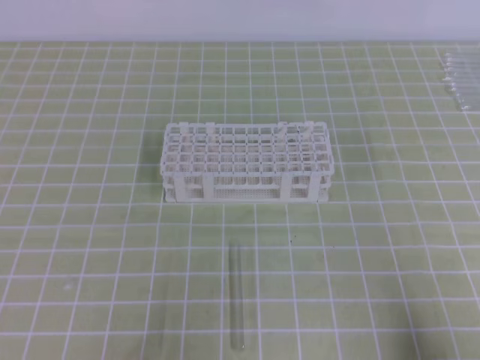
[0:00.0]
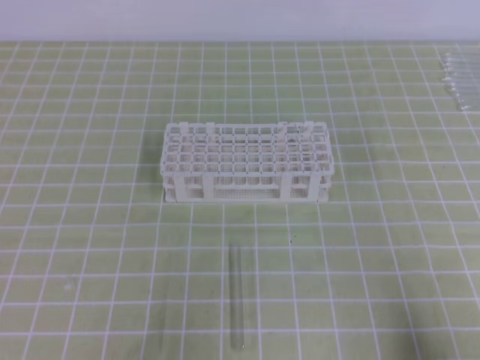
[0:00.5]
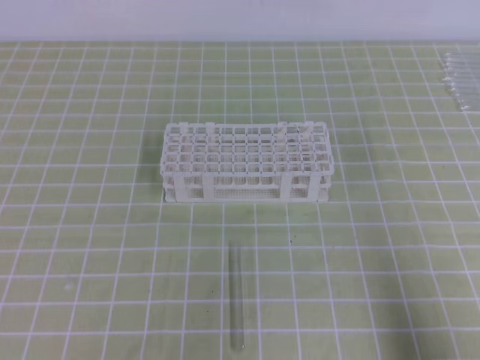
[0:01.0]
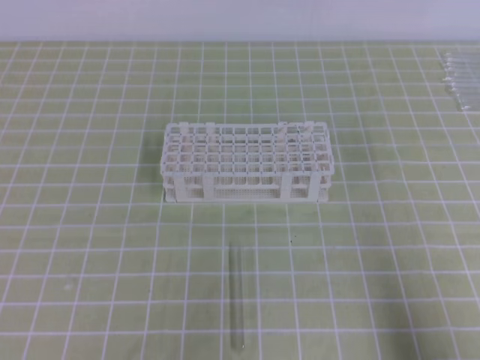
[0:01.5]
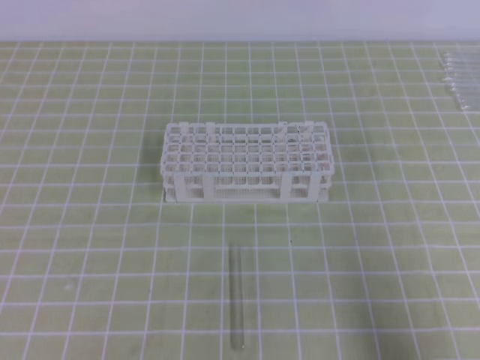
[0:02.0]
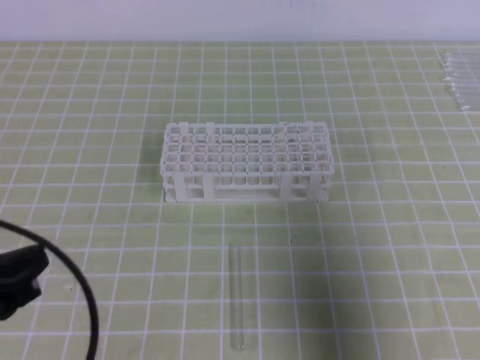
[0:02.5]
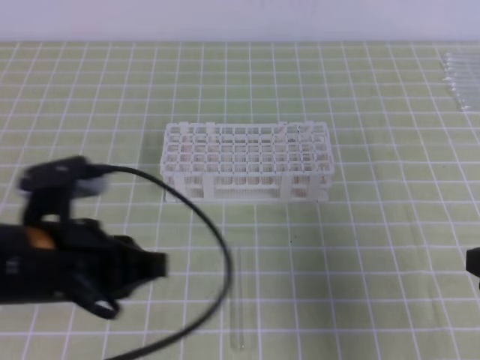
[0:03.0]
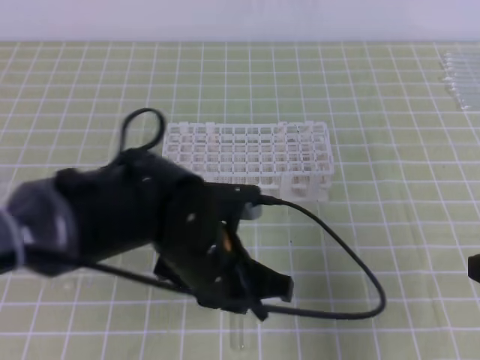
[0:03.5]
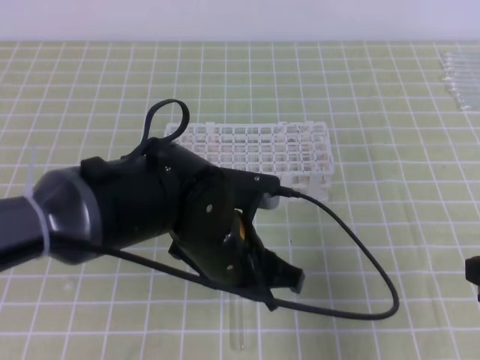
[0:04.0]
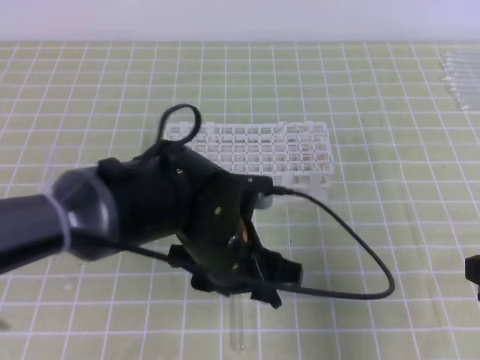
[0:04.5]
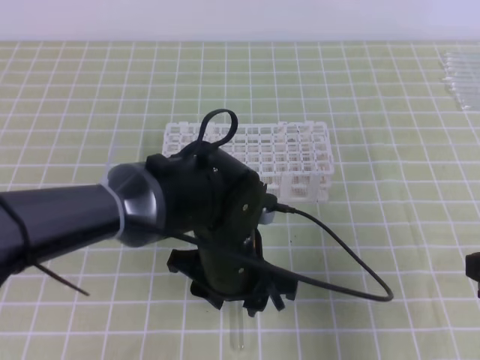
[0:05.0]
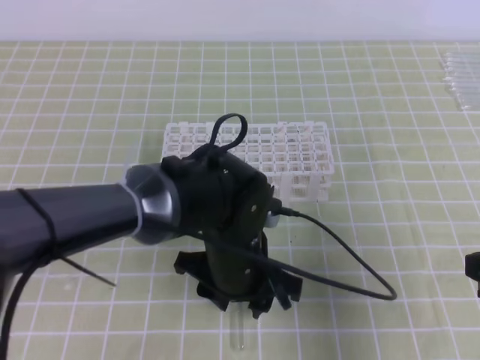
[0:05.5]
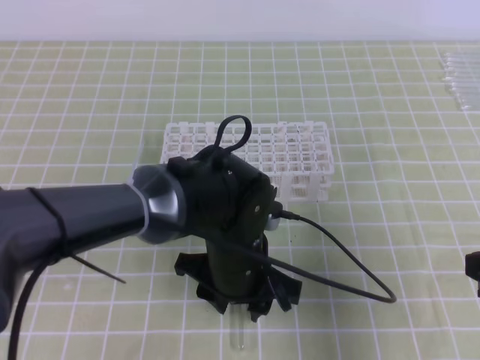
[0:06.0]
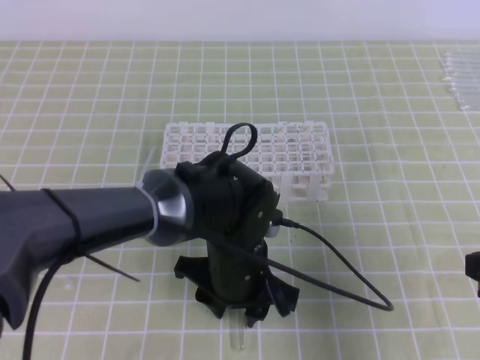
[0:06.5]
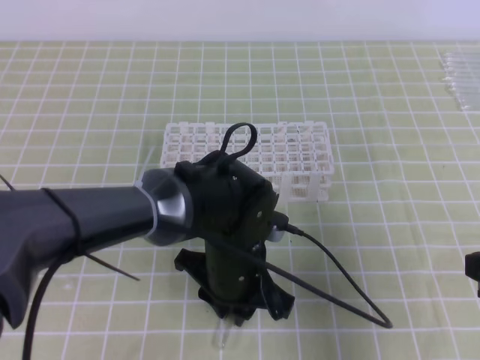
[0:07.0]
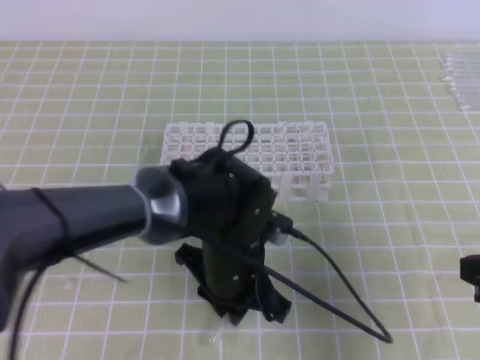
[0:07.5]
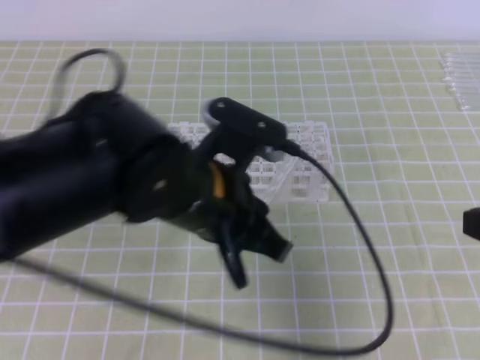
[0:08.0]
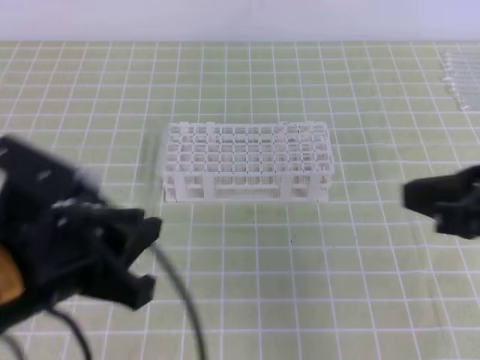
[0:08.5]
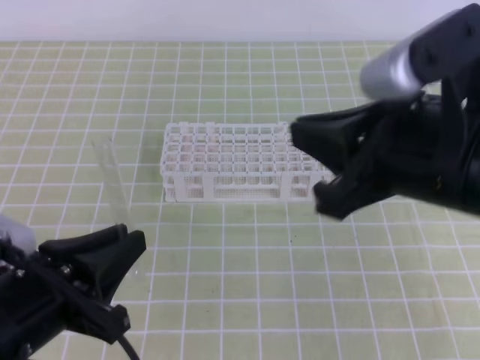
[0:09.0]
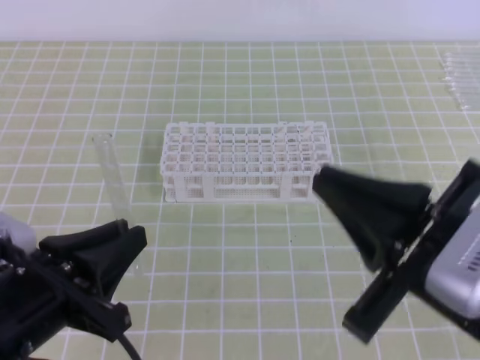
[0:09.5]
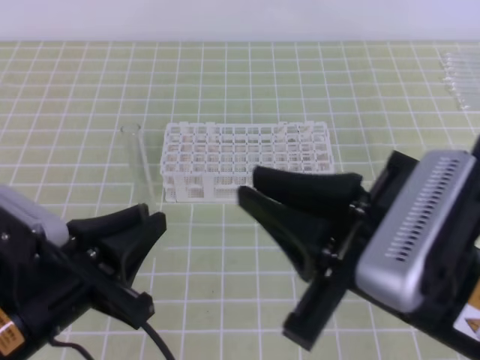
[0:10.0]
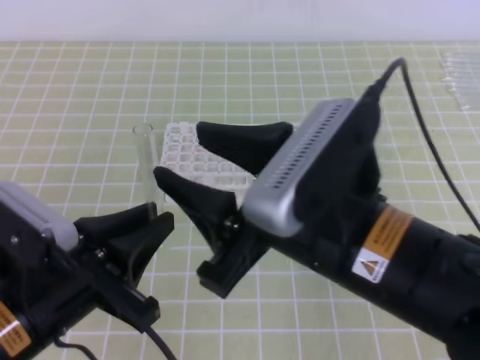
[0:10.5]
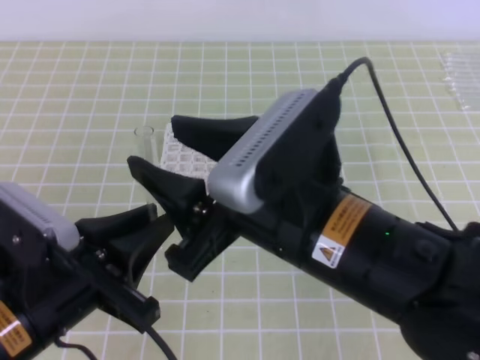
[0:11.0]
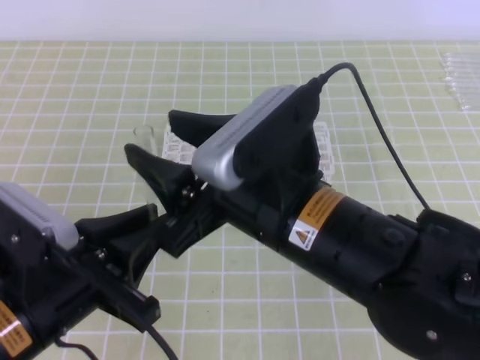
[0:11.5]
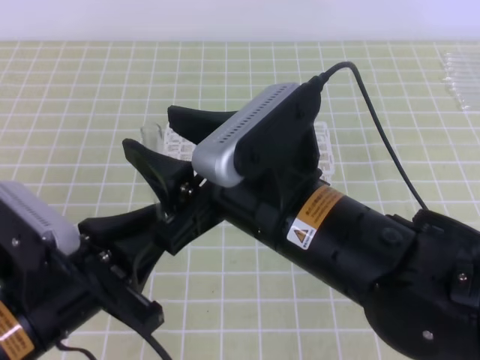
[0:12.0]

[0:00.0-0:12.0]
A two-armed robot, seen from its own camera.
0:00.0 to 0:02.0: The right gripper heads upward, covering roughly 5 cm.
0:02.0 to 0:04.0: The right gripper heads forward, covering roughly 10 cm. The left gripper goes about 30 cm to the right and forward, and opens up.
0:04.0 to 0:06.0: The left gripper is displaced downward by some 5 cm, and opens.
0:06.0 to 0:08.0: The left gripper shifts roughly 10 cm upward, and closes its fingers.
0:08.0 to 0:10.0: The right gripper shifts about 15 cm to the left, while the left gripper moves to the left and backward, about 15 cm.
0:10.0 to 0:12.0: The right gripper goes roughly 10 cm to the left and forward, and opens.

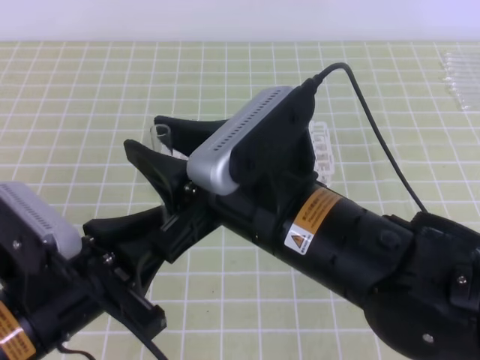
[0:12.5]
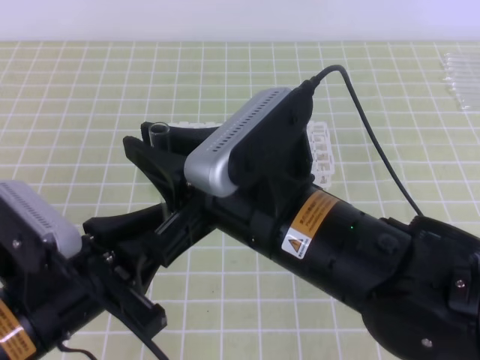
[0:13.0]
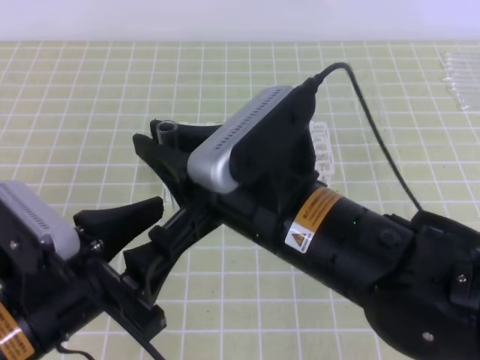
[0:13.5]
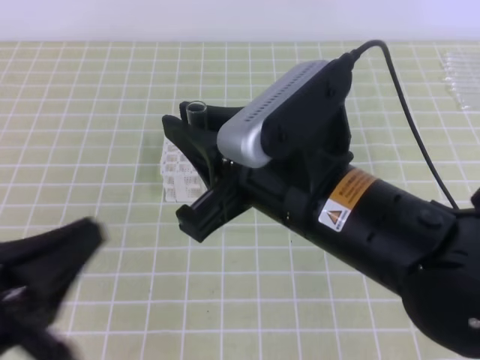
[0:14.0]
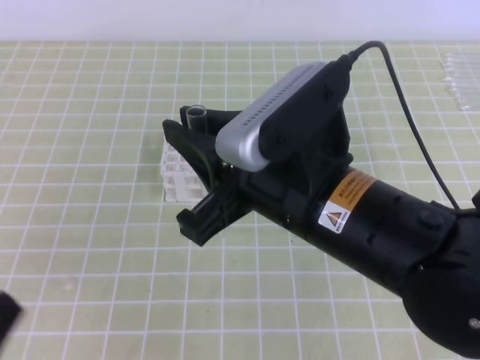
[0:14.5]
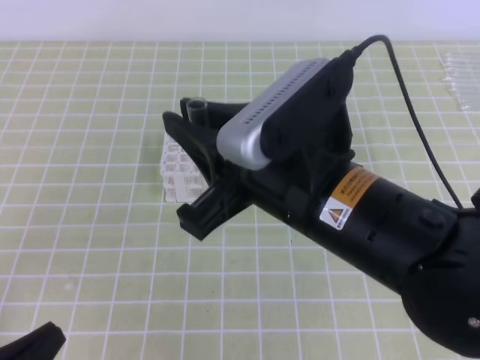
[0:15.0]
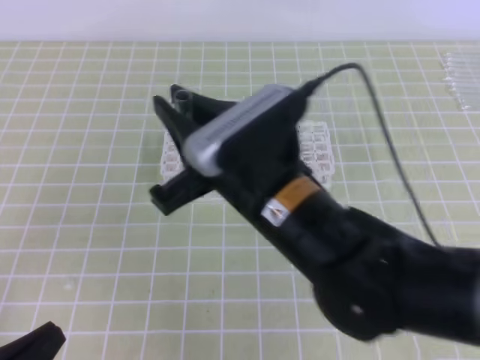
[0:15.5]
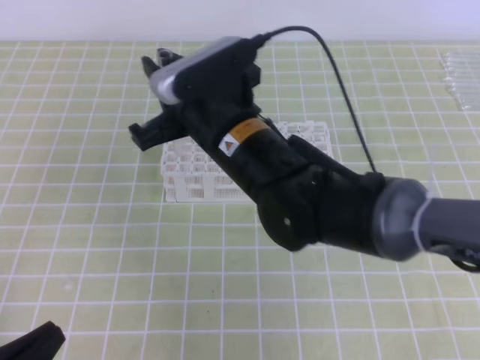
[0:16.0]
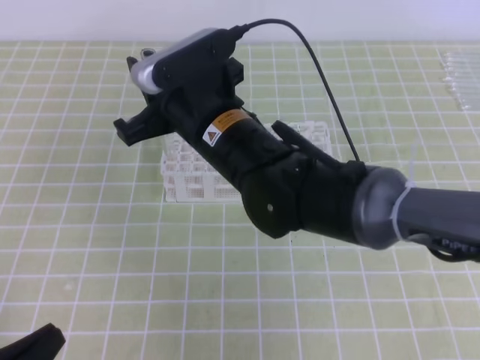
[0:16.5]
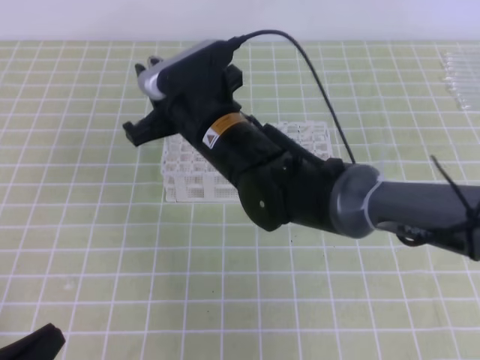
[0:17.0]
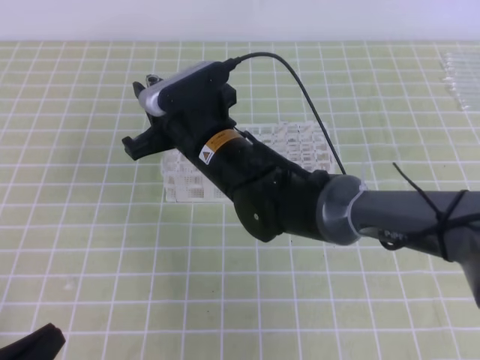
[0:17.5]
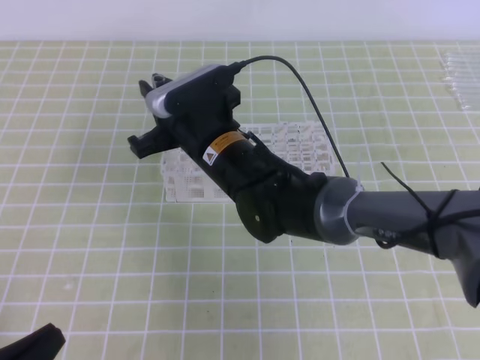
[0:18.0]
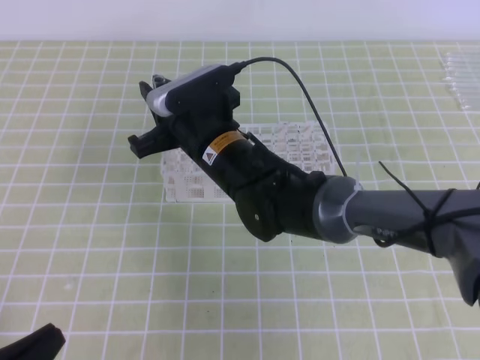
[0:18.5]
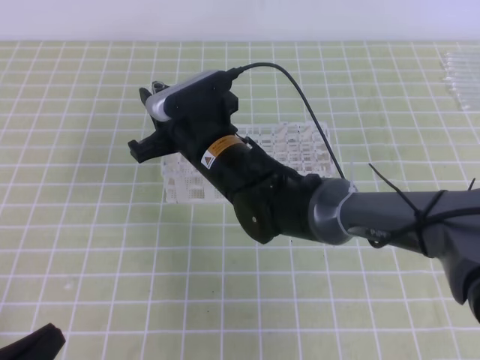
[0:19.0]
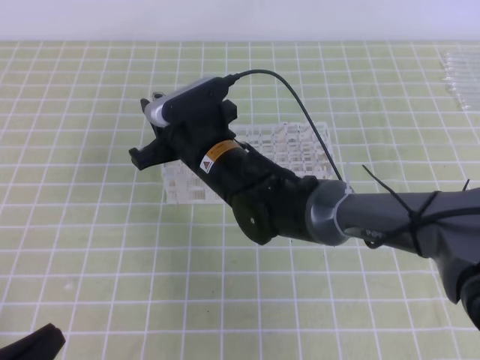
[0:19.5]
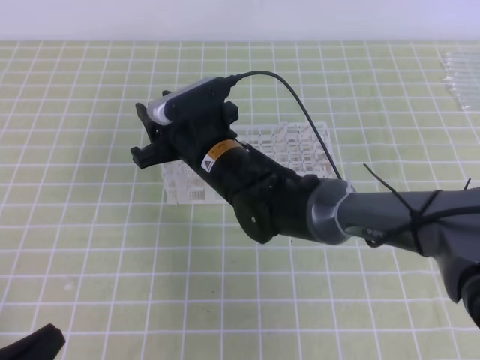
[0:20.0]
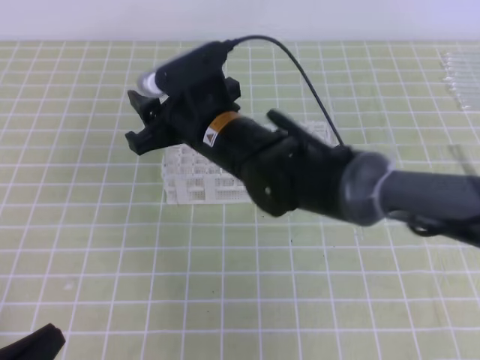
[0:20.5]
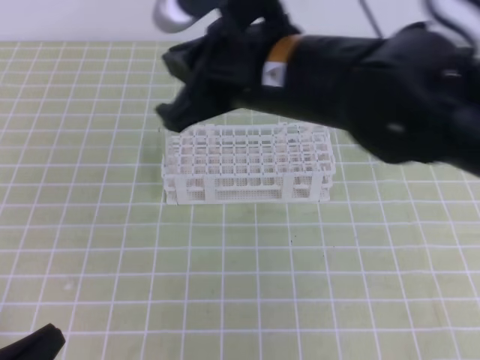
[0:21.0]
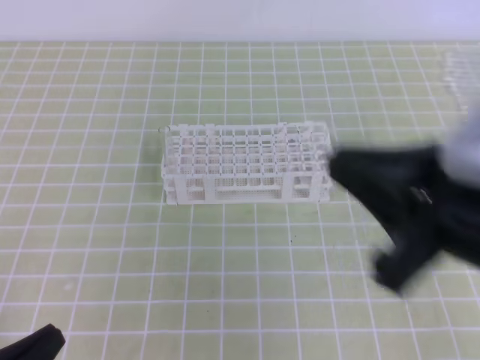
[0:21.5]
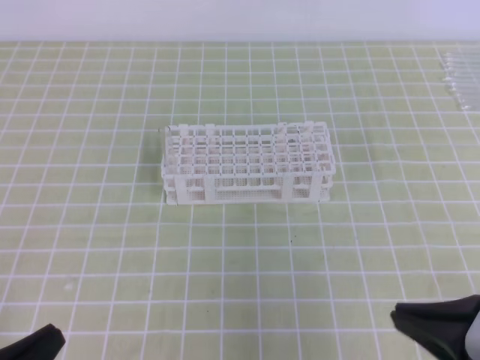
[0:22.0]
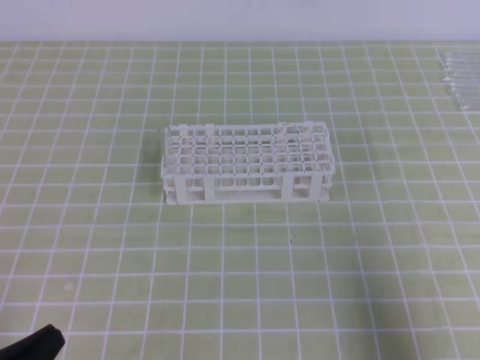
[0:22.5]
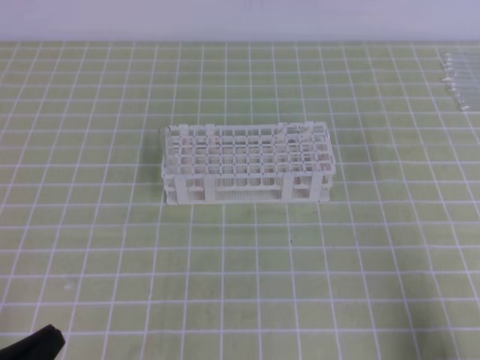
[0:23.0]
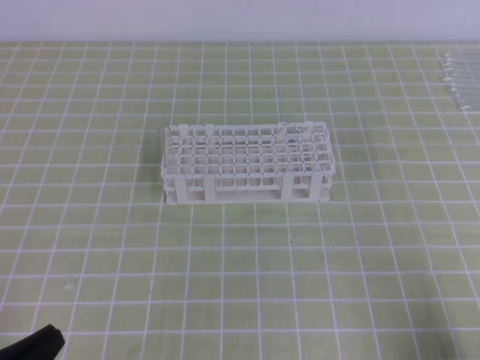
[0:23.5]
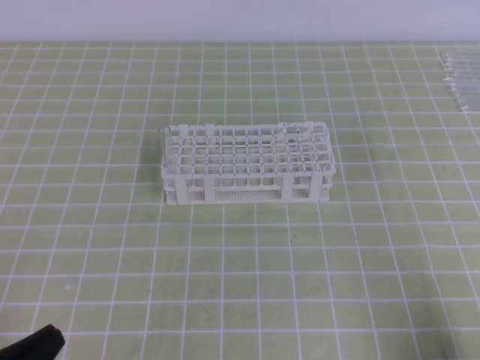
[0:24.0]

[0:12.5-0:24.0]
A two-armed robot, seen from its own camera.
0:12.5 to 0:14.5: The left gripper is displaced to the left and backward by roughly 15 cm, and opens and closes again; the right gripper closes.
0:14.5 to 0:16.5: The left gripper heads downward, covering some 5 cm; the right gripper is displaced forward and to the left by some 15 cm.
0:16.5 to 0:18.5: The right gripper heads downward, covering roughly 5 cm.
0:18.5 to 0:20.0: The right gripper opens up.
0:20.0 to 0:22.0: The right gripper heads to the right and backward, covering approximately 35 cm, and closes its fingers.
0:22.0 to 0:24.0: The right gripper moves to the right and downward, approximately 15 cm.

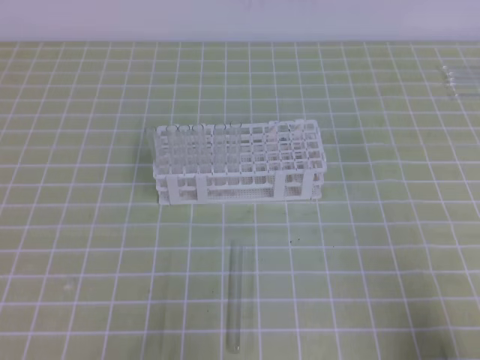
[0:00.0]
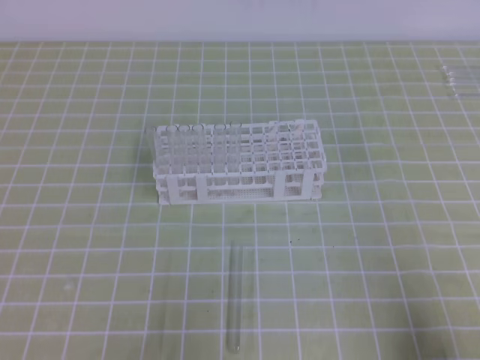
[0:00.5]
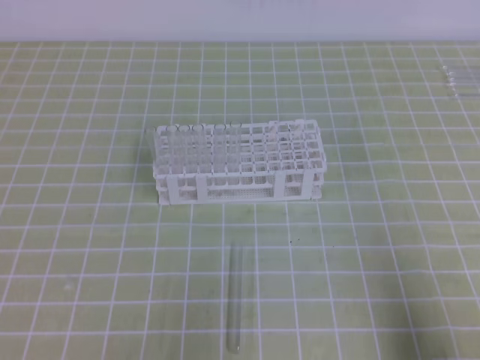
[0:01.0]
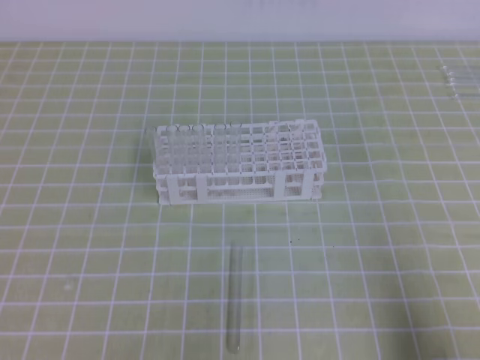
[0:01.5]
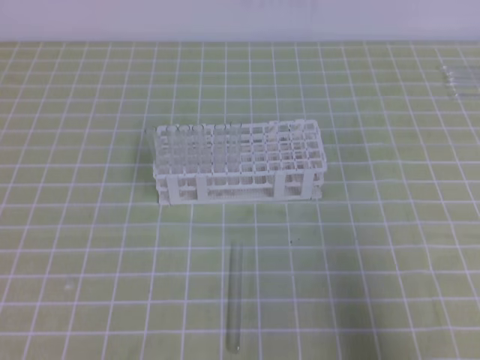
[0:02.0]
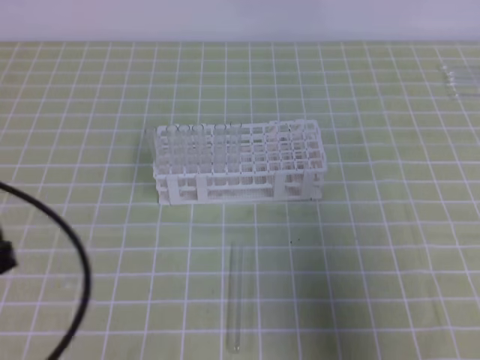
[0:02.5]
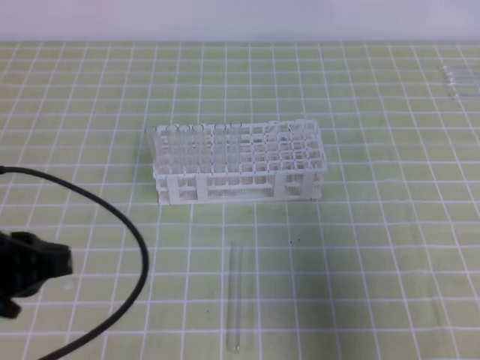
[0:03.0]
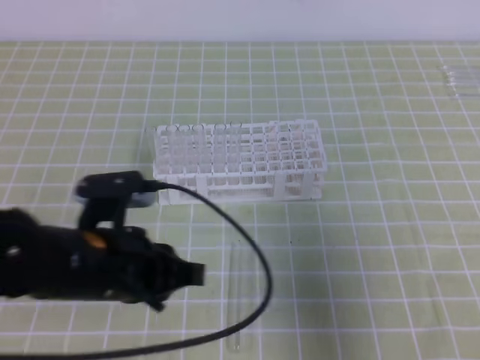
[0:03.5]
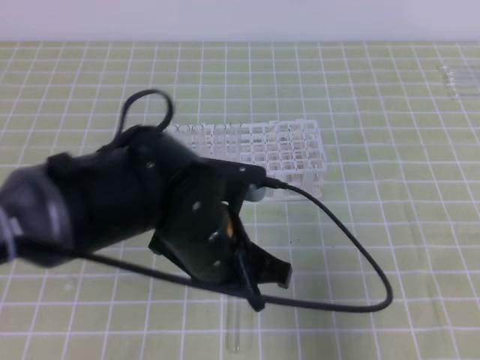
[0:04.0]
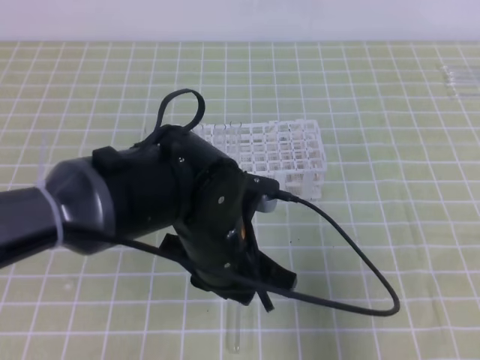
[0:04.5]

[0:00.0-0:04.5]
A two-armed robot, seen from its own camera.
0:00.0 to 0:02.0: The right gripper moves upward, about 10 cm.
0:02.0 to 0:04.5: The right gripper moves forward, roughly 5 cm; the left gripper is displaced to the right and forward by approximately 30 cm, and opens up.
